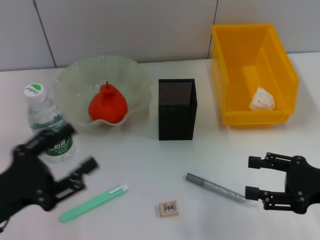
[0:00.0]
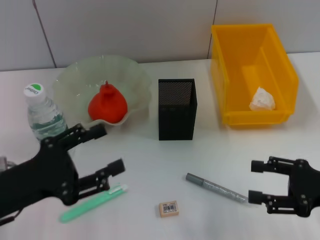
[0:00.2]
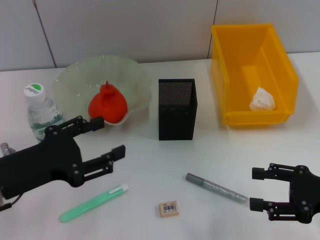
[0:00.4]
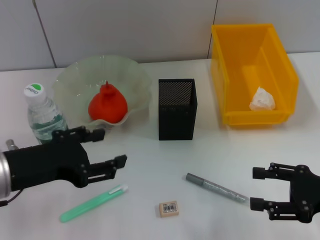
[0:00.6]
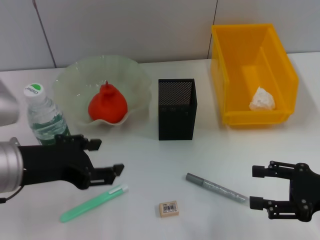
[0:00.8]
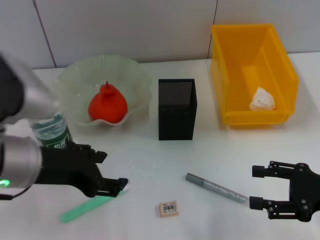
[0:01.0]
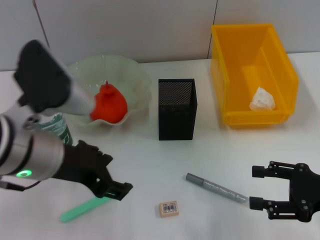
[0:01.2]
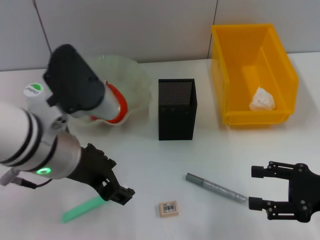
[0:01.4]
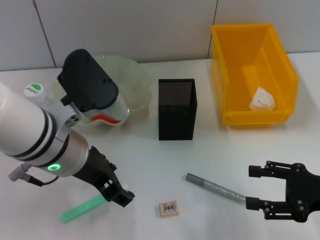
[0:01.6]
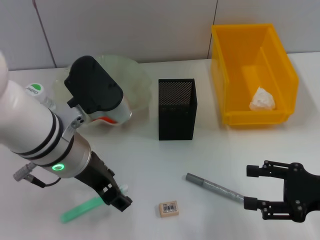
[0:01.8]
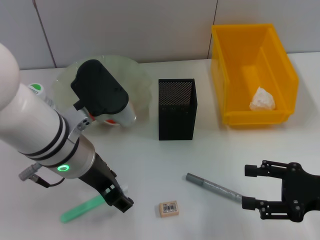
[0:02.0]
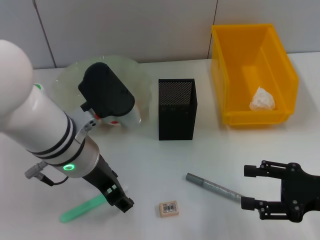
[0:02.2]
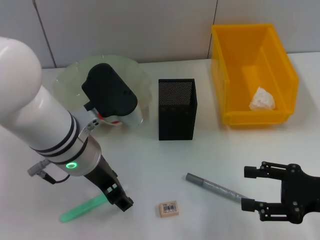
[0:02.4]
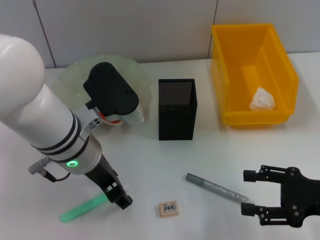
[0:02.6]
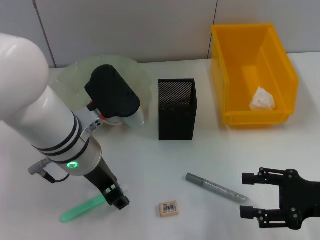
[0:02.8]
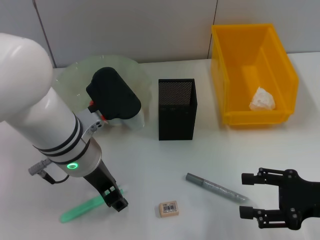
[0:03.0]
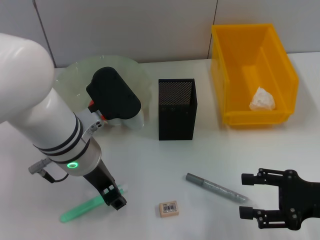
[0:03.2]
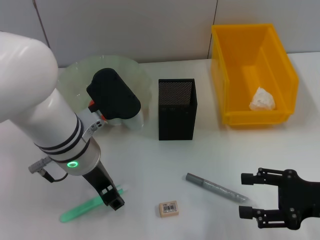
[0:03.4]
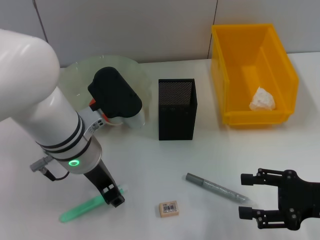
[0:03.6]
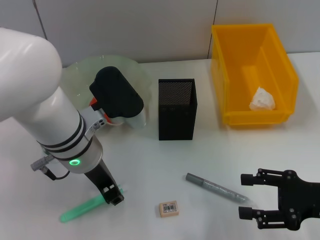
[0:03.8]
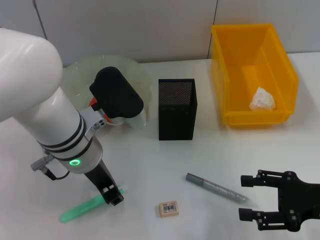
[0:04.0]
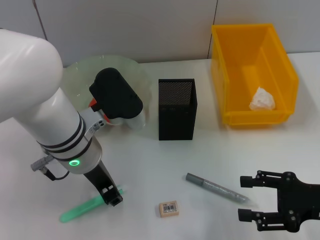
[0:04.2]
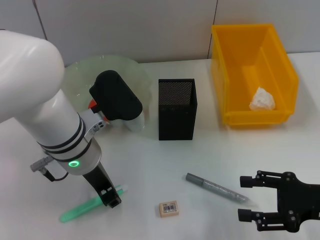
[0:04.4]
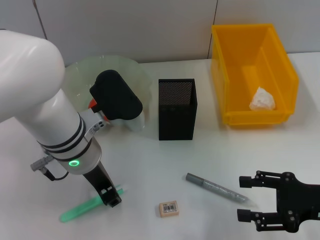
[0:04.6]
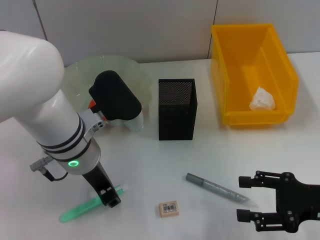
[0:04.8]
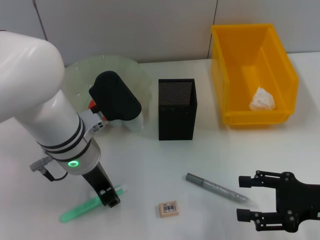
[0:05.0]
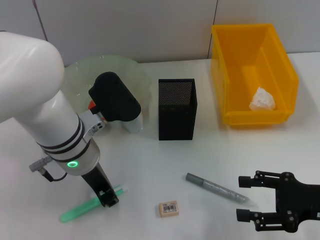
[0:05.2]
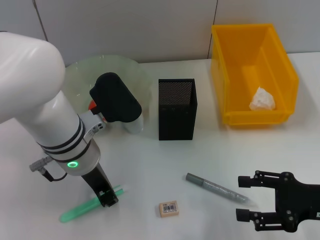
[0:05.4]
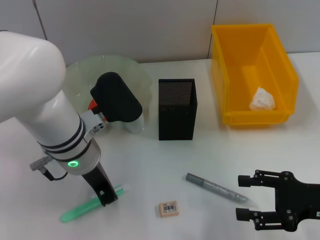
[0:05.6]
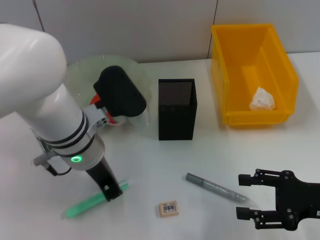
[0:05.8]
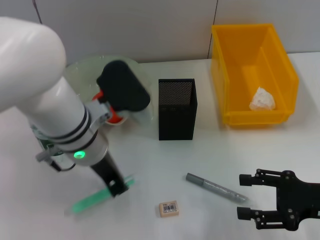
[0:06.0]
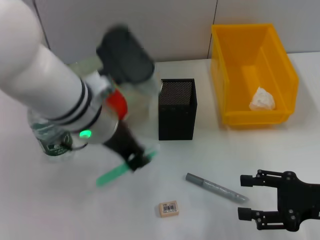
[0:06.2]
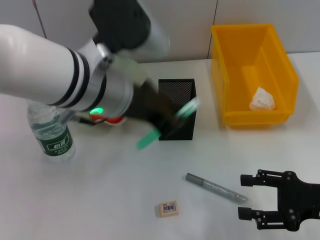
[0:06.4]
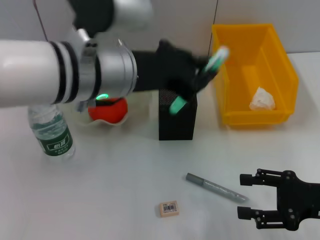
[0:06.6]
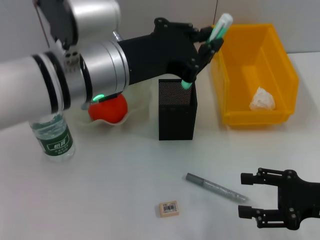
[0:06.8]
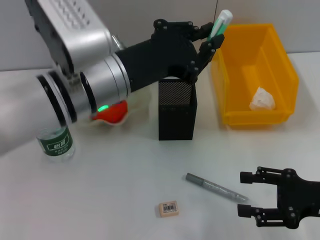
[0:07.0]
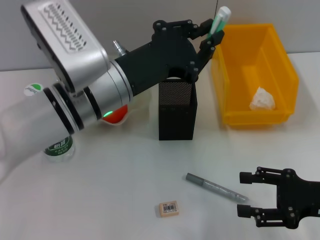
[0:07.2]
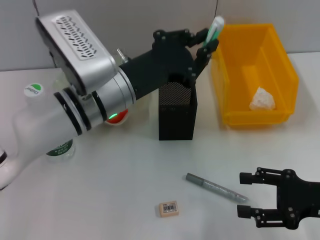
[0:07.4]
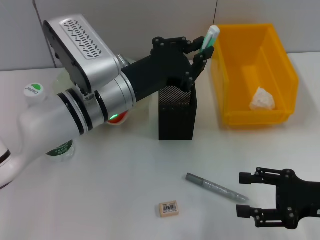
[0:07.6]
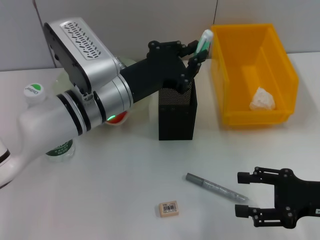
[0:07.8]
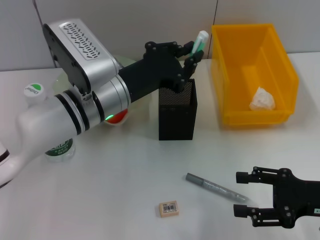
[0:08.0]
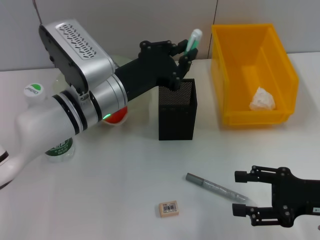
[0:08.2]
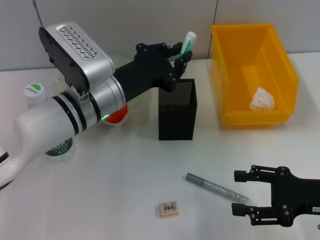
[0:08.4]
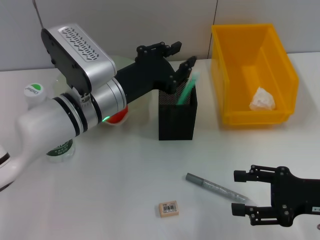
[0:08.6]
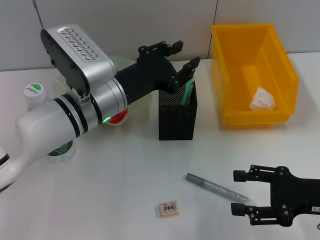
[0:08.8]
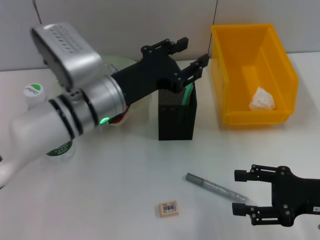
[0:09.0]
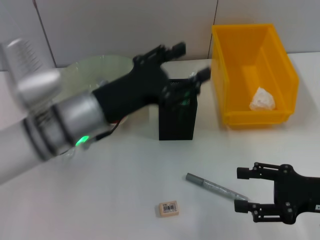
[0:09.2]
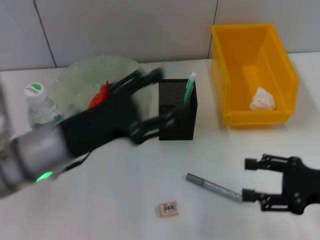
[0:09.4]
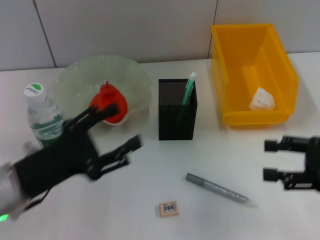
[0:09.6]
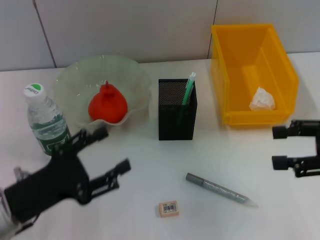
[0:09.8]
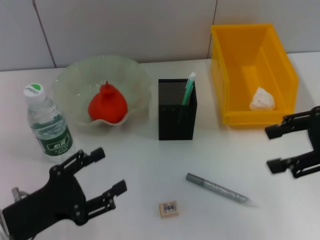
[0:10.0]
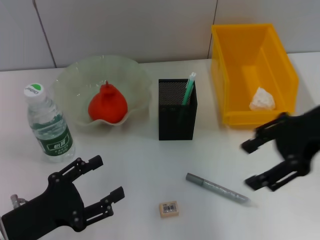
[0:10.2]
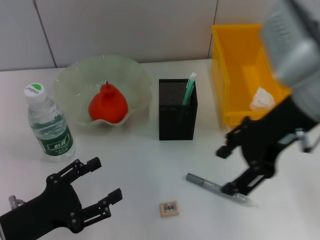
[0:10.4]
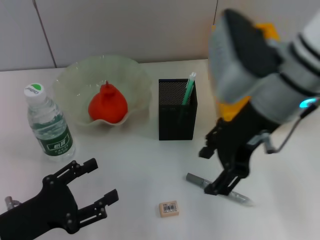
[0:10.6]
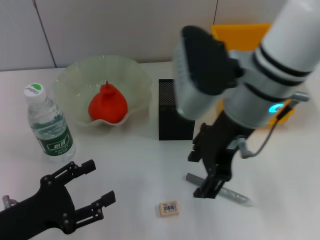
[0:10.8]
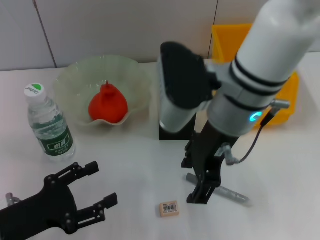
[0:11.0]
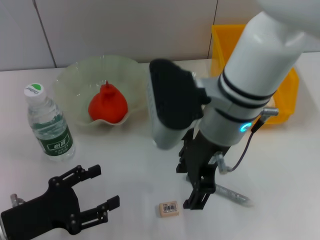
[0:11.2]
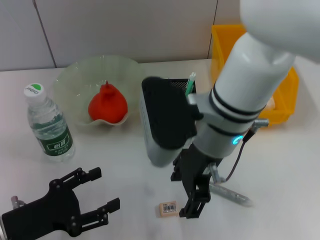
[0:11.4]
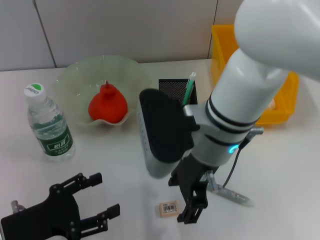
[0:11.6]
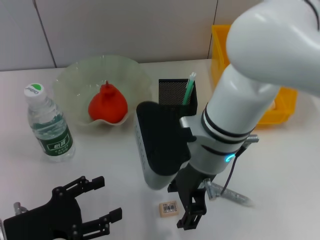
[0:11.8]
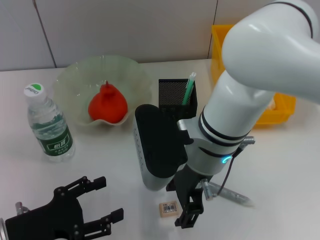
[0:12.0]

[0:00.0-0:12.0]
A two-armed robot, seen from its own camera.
Step, 0:00.0 to 0:05.4: Grab the blue utility knife with the left hand.
Step, 0:05.6 to 0:08.6: Place the blue utility knife into the pen holder with the left hand.
0:00.0 to 0:01.6: The left gripper travels to the right, upward and forward by approximately 20 cm.
0:01.6 to 0:03.0: The left gripper shifts by approximately 5 cm.
0:03.0 to 0:04.4: Both grippers stay put.
0:04.4 to 0:06.0: The grippers stay close to where they were, moving slightly.
0:06.0 to 0:07.6: The left gripper reaches about 10 cm upward, then returns.
0:07.6 to 0:09.0: The grippers stay close to where they were, moving slightly.
0:09.0 to 0:10.4: The right gripper is displaced upward, to the left and forward by some 25 cm. The left gripper shifts approximately 25 cm to the left, backward and downward, and opens up.
0:10.4 to 0:12.0: The right gripper goes approximately 15 cm to the left and downward.

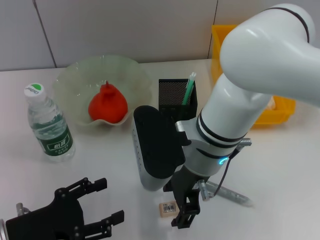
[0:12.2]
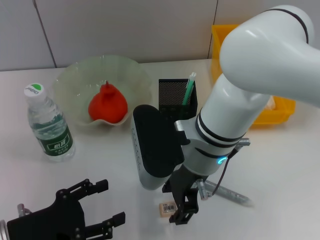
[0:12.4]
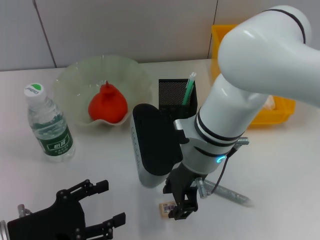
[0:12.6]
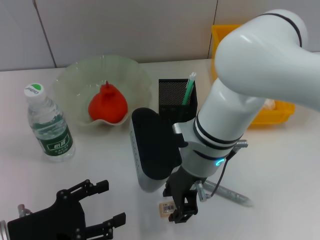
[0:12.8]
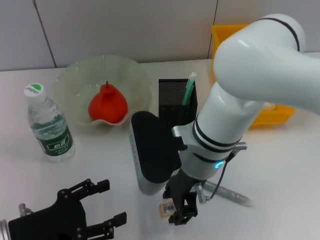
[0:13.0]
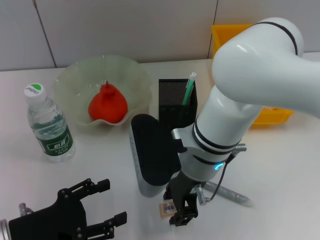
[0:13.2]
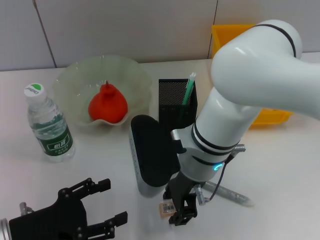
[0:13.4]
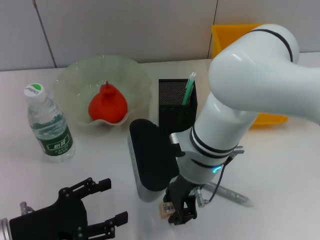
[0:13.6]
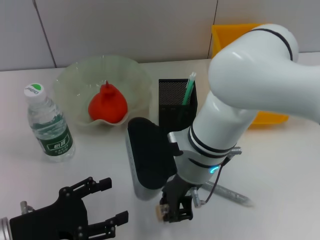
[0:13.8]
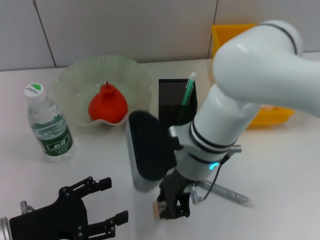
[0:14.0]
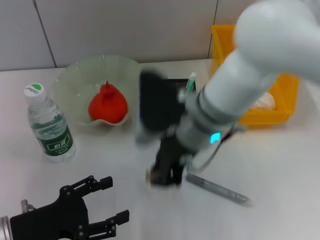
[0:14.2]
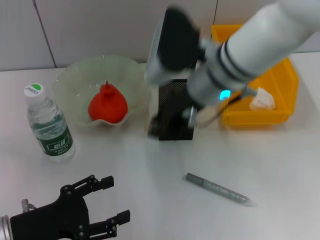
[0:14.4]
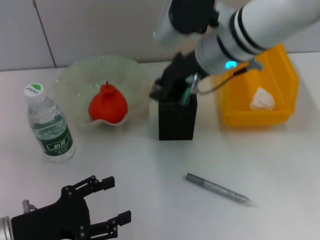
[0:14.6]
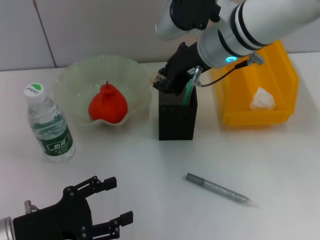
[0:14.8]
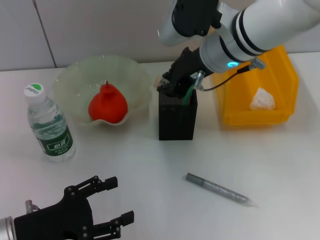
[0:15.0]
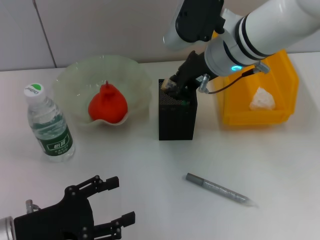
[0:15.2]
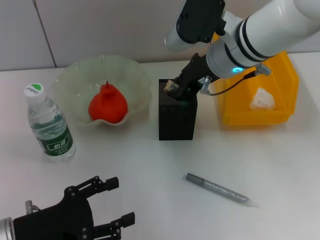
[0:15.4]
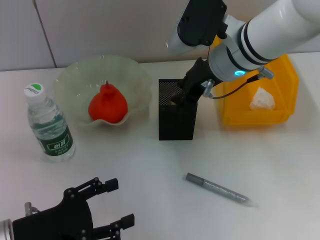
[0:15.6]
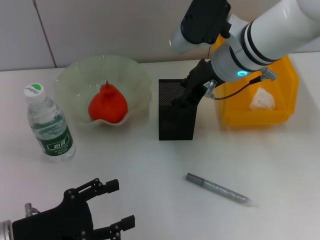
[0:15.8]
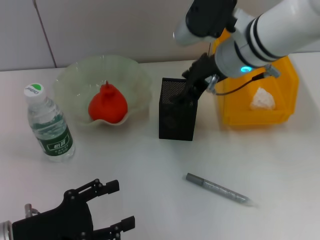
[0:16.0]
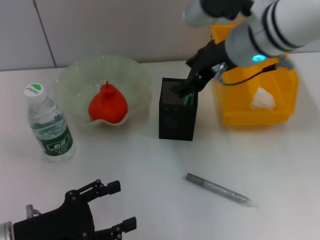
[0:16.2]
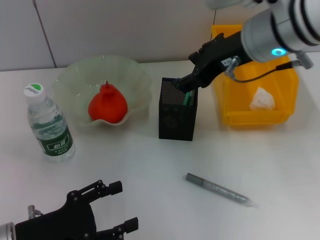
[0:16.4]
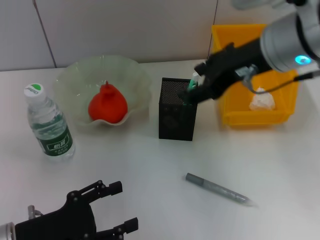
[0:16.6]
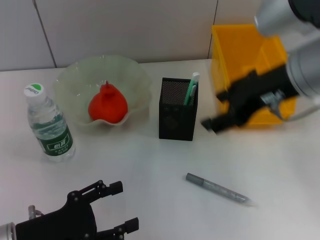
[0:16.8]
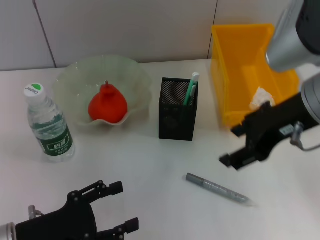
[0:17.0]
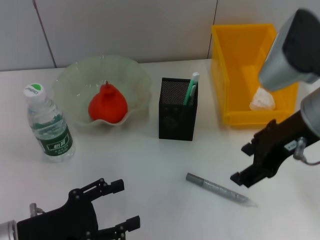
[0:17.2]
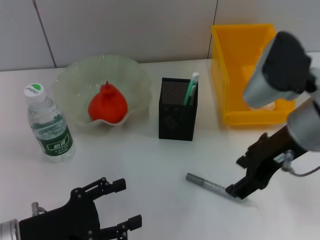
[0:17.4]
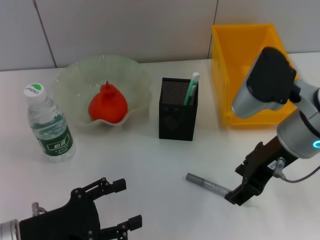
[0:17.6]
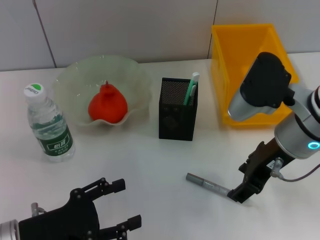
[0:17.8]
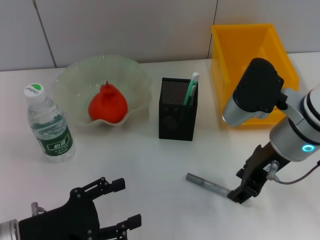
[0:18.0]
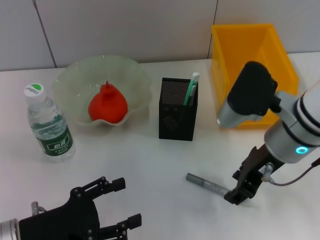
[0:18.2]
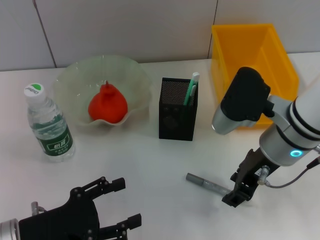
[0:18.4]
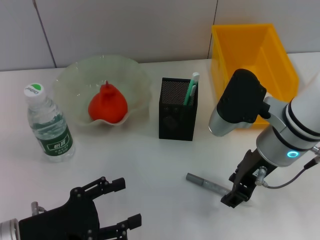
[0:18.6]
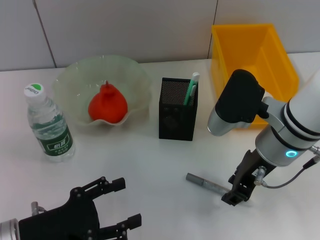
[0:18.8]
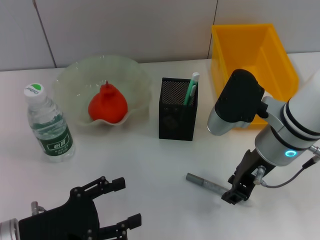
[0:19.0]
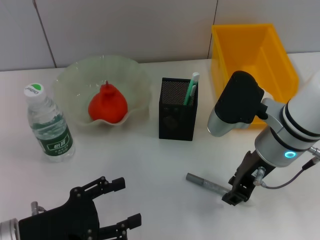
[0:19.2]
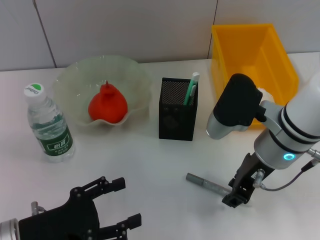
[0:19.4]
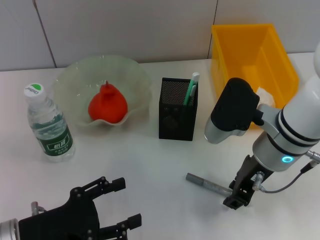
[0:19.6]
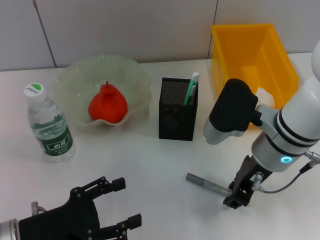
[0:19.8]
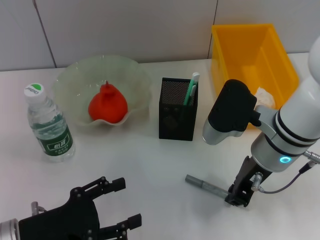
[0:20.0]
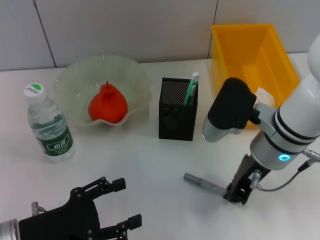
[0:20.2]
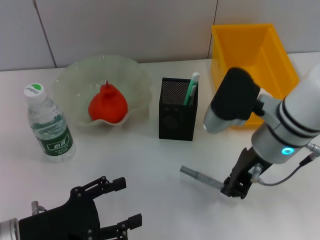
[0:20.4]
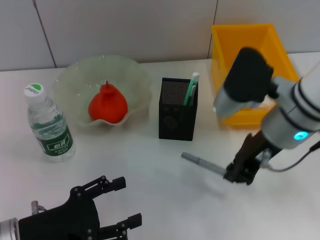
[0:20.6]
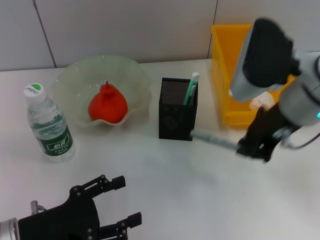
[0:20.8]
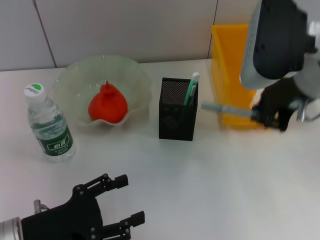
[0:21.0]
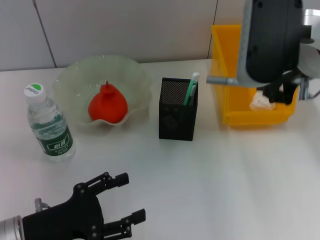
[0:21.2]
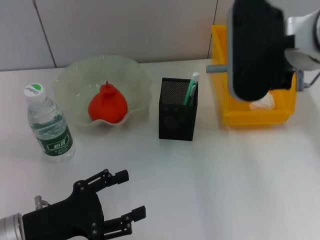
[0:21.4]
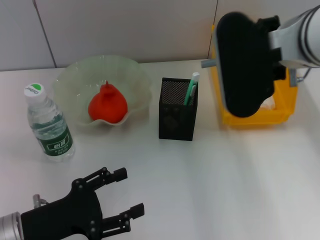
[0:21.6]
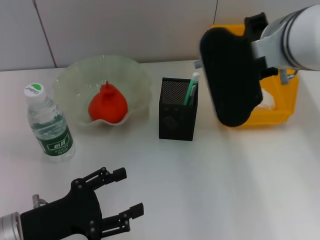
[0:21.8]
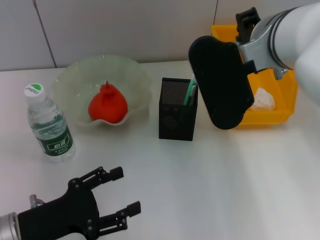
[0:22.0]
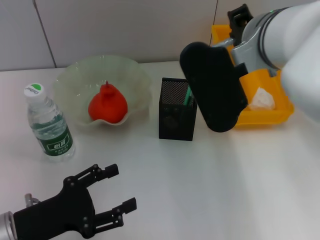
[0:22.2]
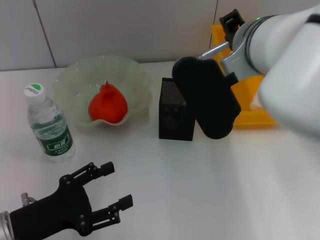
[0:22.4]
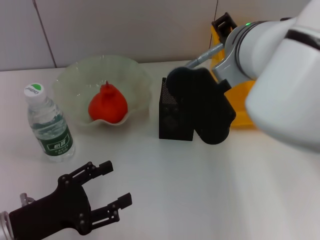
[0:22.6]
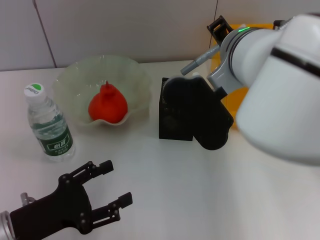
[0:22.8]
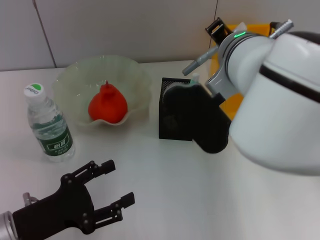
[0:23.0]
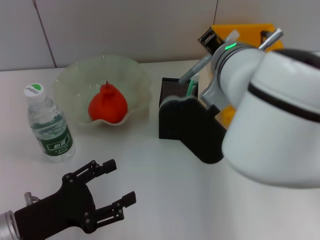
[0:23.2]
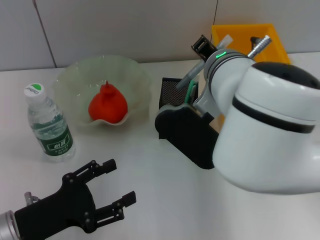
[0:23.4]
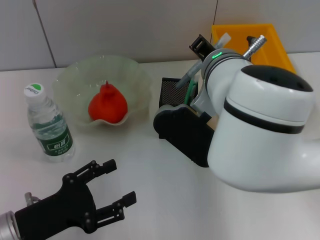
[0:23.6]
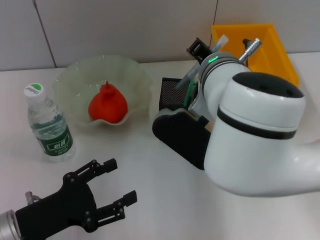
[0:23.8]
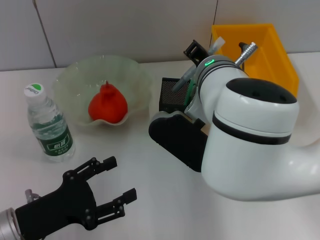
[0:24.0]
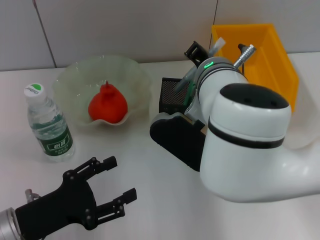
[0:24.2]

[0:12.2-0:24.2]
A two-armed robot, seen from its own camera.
Step, 0:13.8 to 0:15.6: Put the eraser into the pen holder with the right hand.
Step, 0:15.8 to 0:20.0: Grab the gray glue with the right hand.
0:12.2 to 0:13.8: The right gripper closes its fingers.
0:13.8 to 0:15.2: The right gripper heads forward, upward and to the right, covering roughly 15 cm.
0:15.2 to 0:16.6: The right gripper is displaced backward and upward by some 10 cm, and opens its fingers.
0:16.6 to 0:18.2: The right gripper moves downward, approximately 10 cm.
0:18.2 to 0:19.8: There are only small adjustments of the grippers.
0:19.8 to 0:21.2: The right gripper is displaced upward by some 15 cm, and closes.
0:21.2 to 0:22.6: The right gripper goes approximately 10 cm to the left.
0:22.6 to 0:24.2: The right gripper travels downward by about 5 cm.
